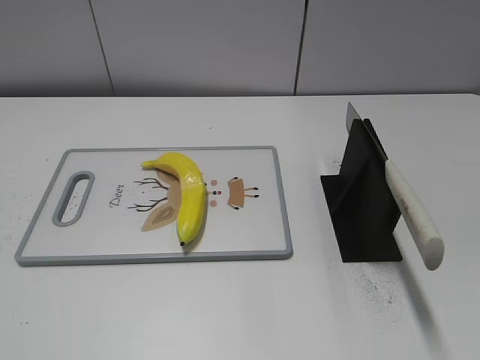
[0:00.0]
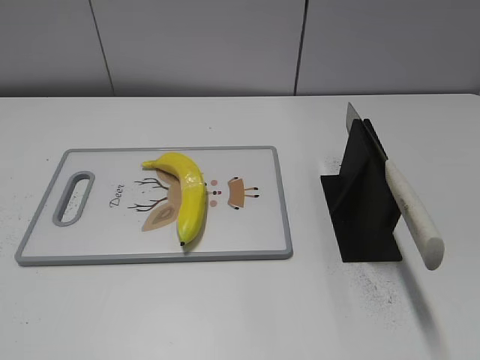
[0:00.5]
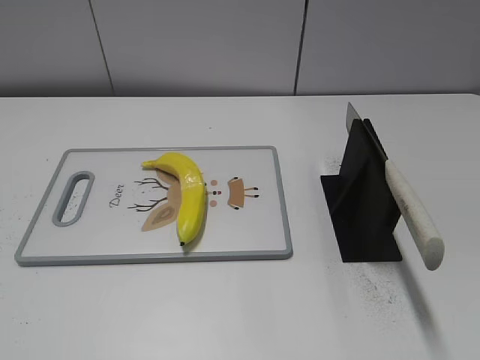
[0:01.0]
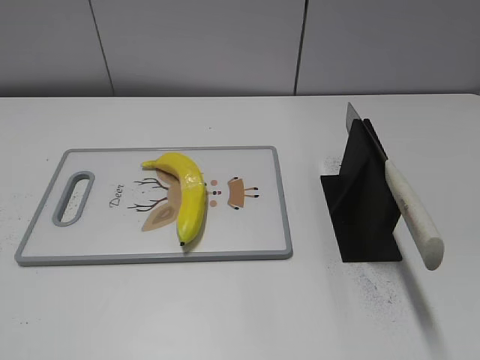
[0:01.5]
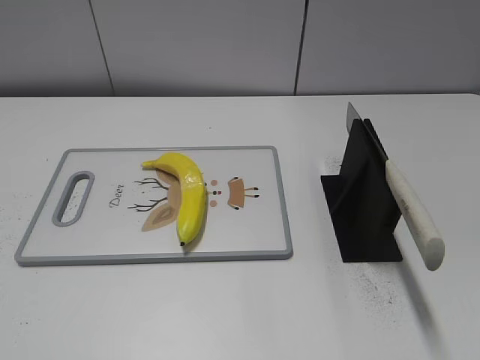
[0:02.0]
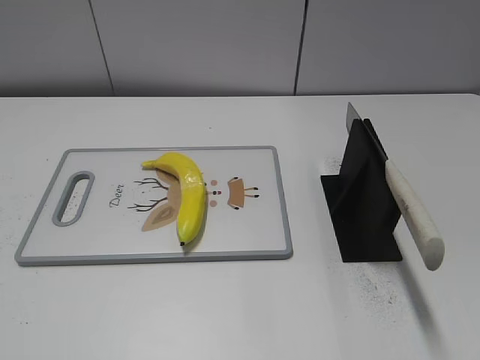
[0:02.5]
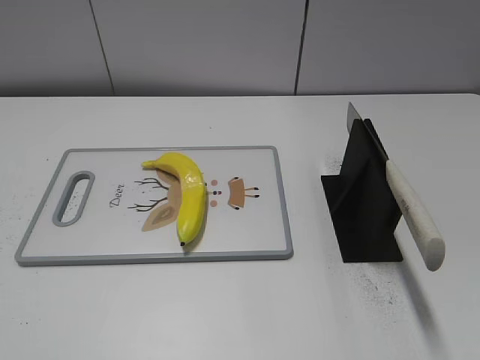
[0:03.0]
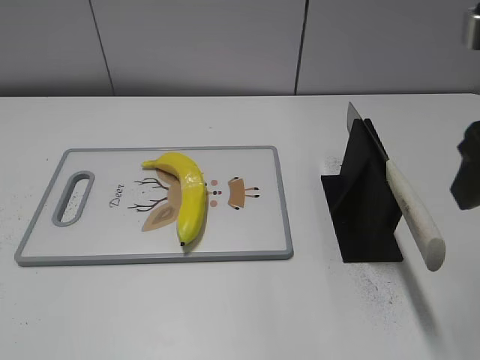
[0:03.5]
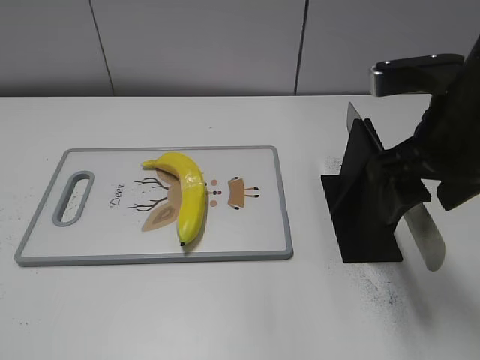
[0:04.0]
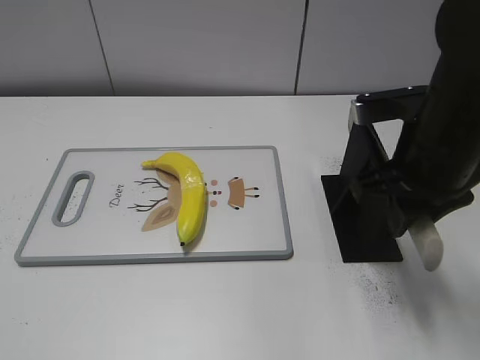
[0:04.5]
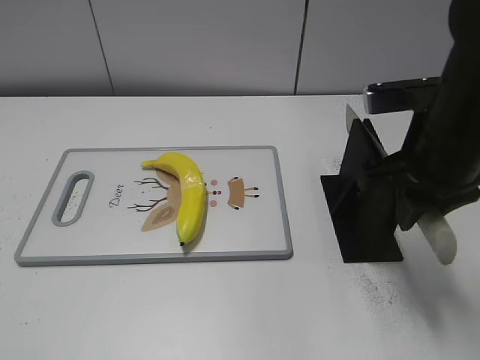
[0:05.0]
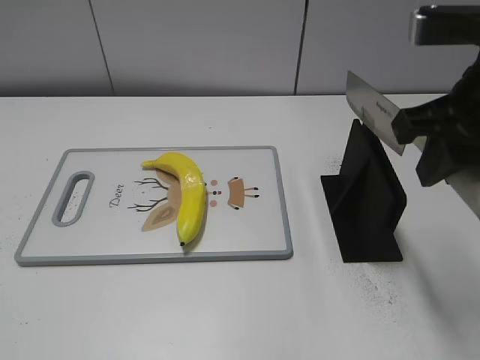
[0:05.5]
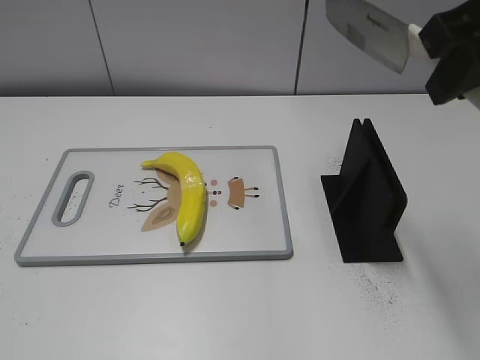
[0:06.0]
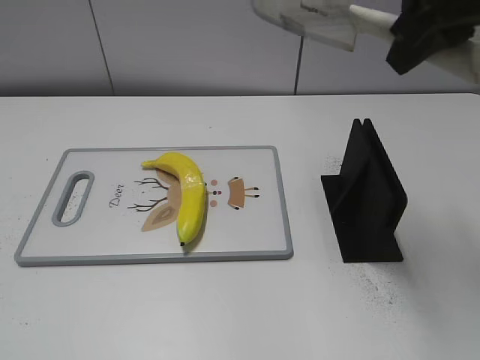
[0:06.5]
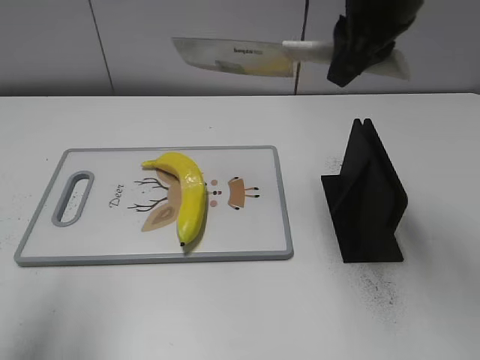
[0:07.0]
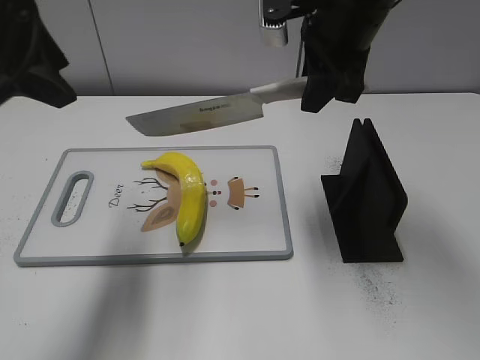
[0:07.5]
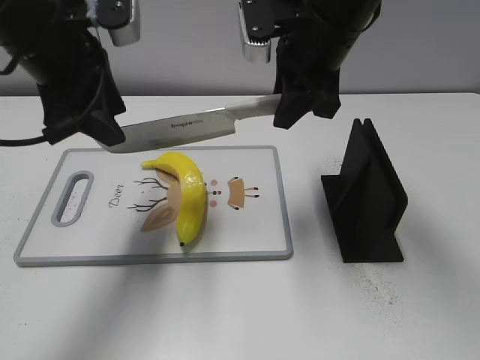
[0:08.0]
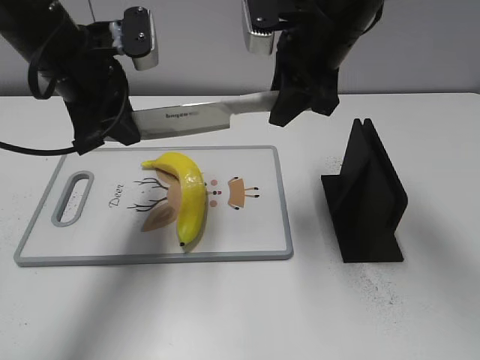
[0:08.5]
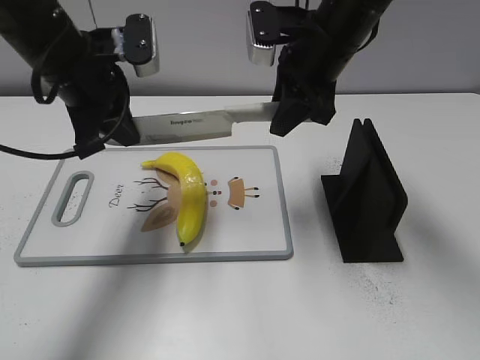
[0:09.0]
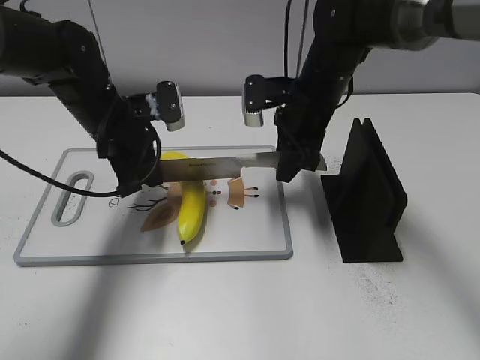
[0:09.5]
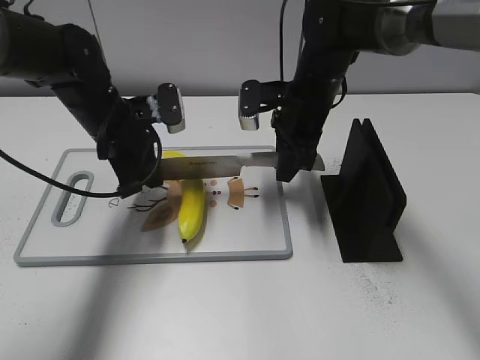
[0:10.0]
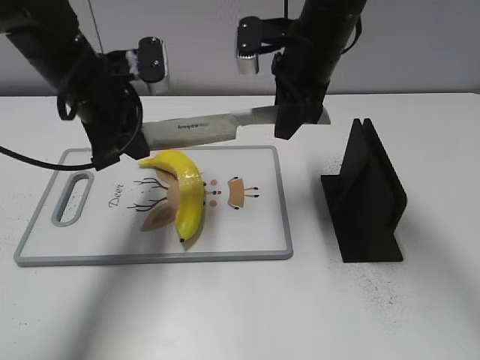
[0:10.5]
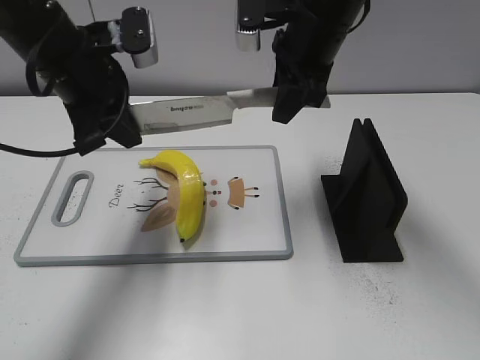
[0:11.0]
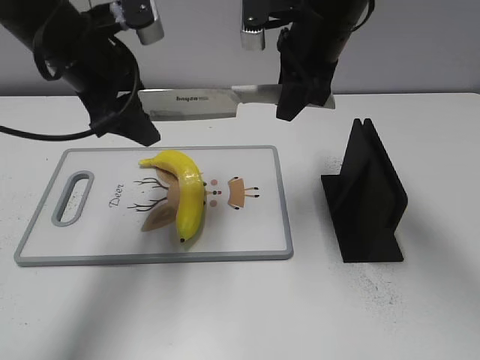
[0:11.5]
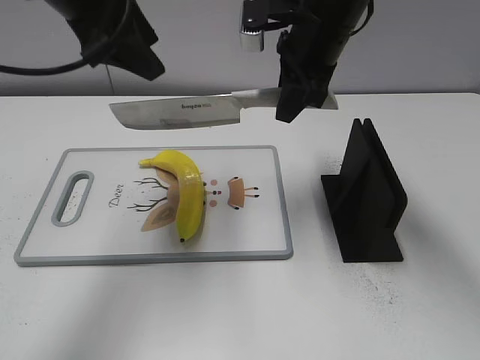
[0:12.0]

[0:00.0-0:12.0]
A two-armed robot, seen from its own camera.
Task of the whole recording: cut plastic banana.
Step, 0:00.0 to 0:05.5: Grab the knife handle with your right hand.
Step, 0:06.0 to 0:10.5: Lift the knife with your right hand.
0:02.0 to 0:04.0: The right gripper travels forward and to the left by about 30 cm.
0:04.0 to 0:06.0: The right gripper goes about 10 cm upward, and closes its fingers.
0:06.0 to 0:08.0: The right gripper travels forward, to the left and downward by approximately 20 cm; the left gripper heads forward, covering approximately 35 cm.
0:08.0 to 0:10.0: The right gripper heads downward, covering roughly 10 cm. The left gripper goes approximately 15 cm downward and forward, and closes up.
0:10.0 to 0:12.0: The right gripper travels upward by roughly 10 cm. Meanwhile the left gripper moves upward, some 20 cm, and opens.

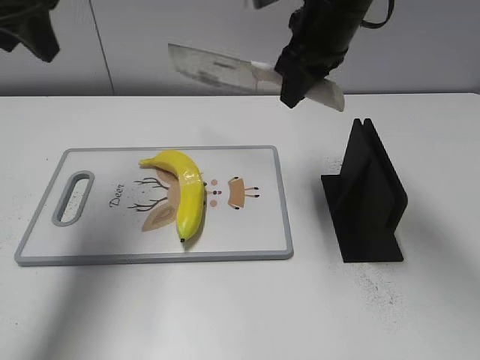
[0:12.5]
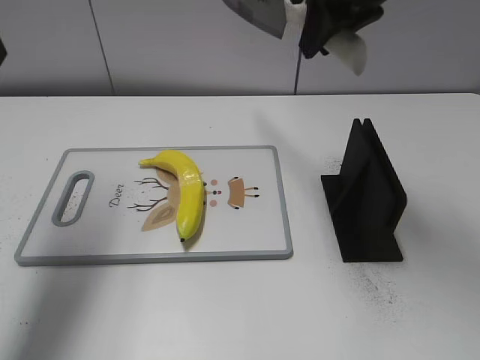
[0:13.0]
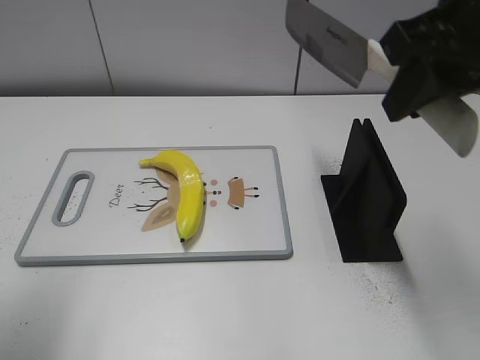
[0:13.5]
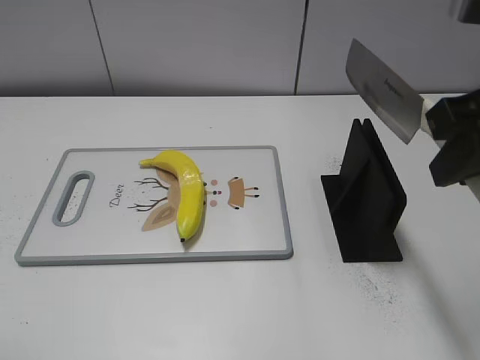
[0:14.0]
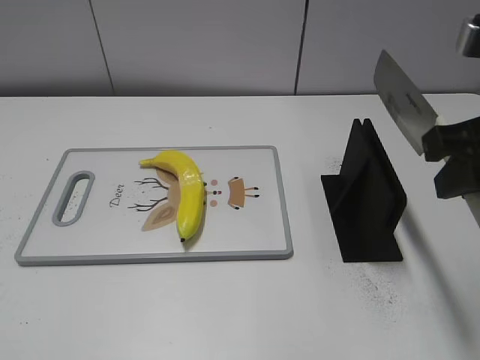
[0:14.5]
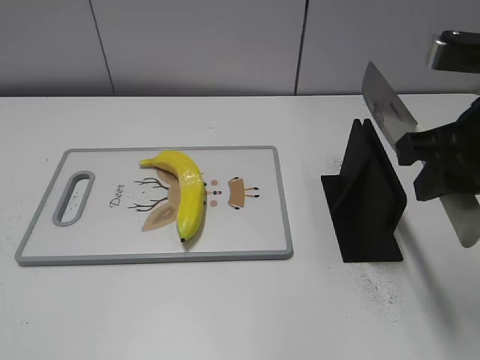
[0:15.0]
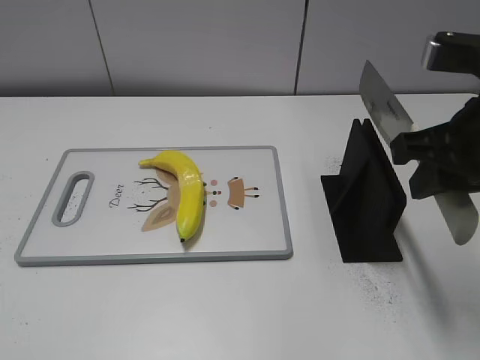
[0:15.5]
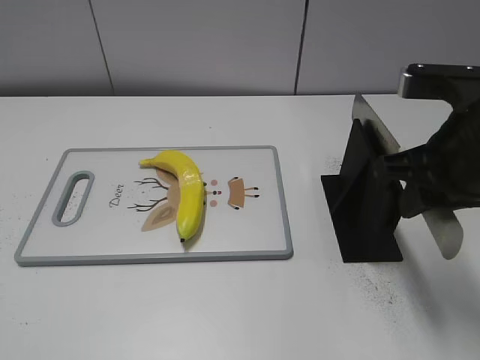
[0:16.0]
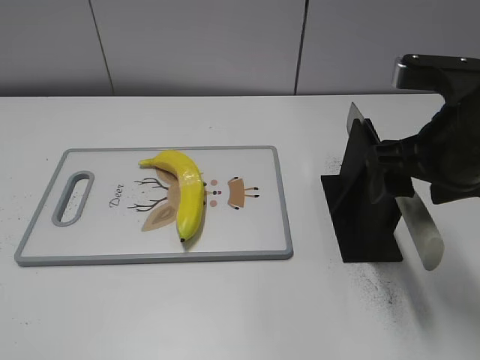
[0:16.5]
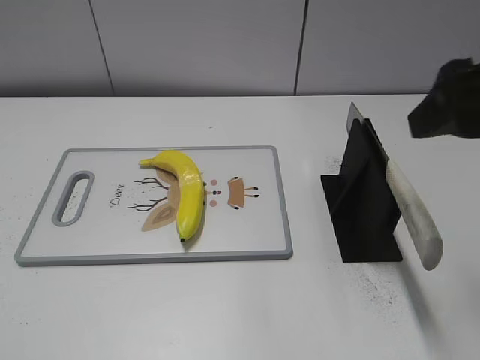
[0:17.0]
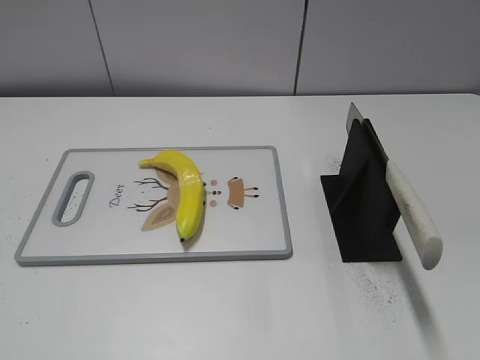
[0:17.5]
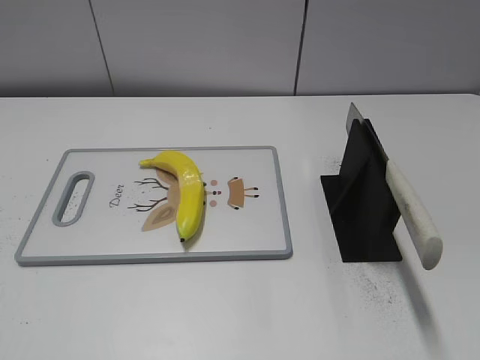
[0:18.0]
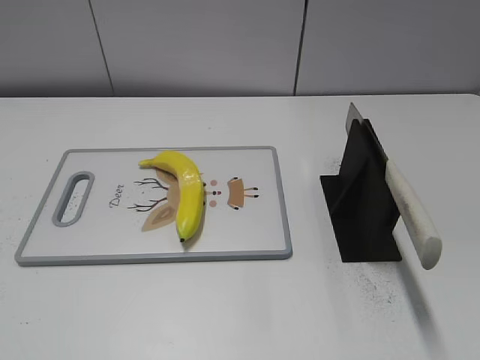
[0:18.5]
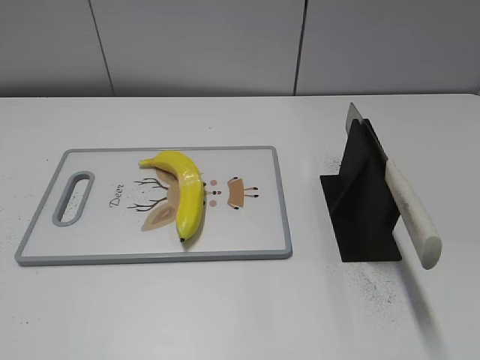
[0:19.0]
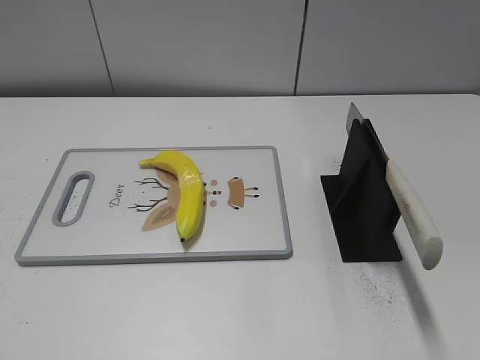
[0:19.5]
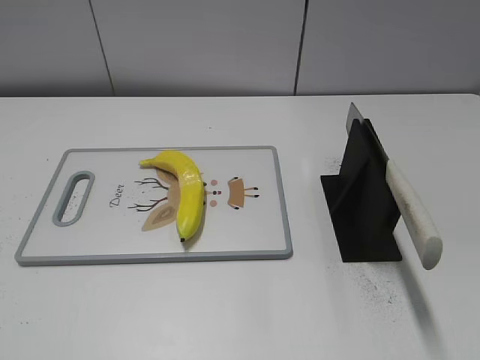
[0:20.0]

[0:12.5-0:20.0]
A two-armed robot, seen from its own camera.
Task of the whole recording: cut plastic banana.
Step, 0:14.0 to 0:20.0: Place the knife on the storage rack with your right hand.
0:12.5 to 0:14.5: The right gripper moves backward and to the right, roughly 25 cm, while the left gripper goes roughly 35 cm backward.
0:14.5 to 0:16.5: The right gripper shifts about 5 cm downward, and opens up.
0:16.5 to 0:18.0: The right gripper travels backward and to the right by roughly 25 cm.

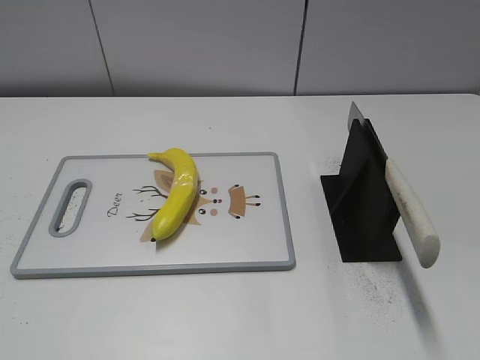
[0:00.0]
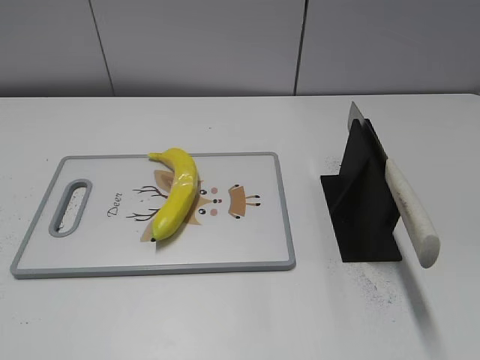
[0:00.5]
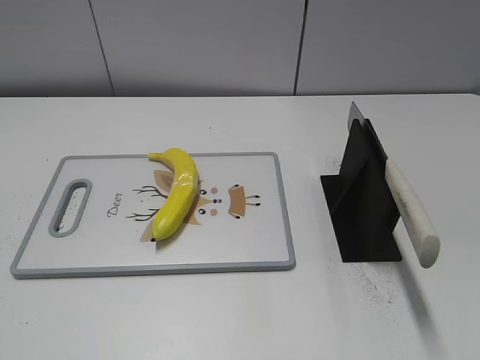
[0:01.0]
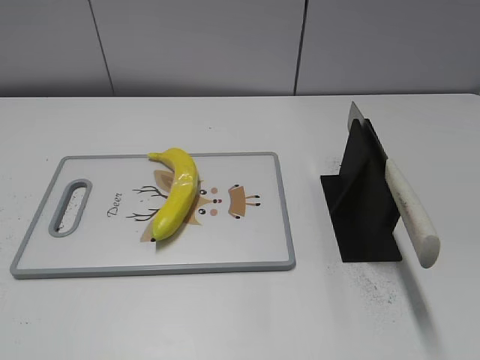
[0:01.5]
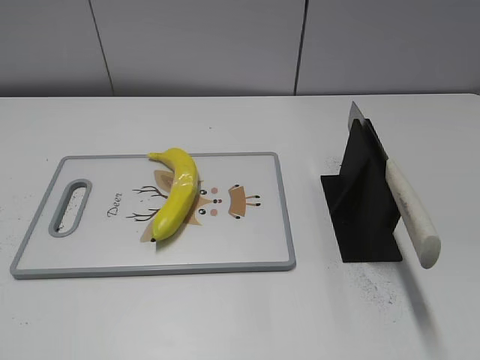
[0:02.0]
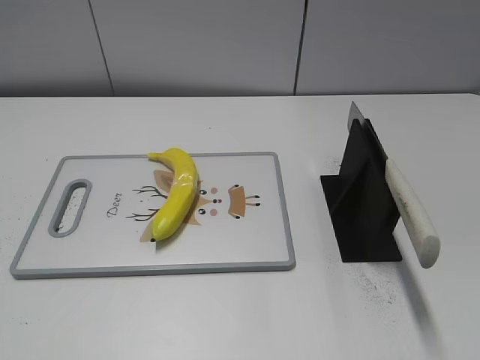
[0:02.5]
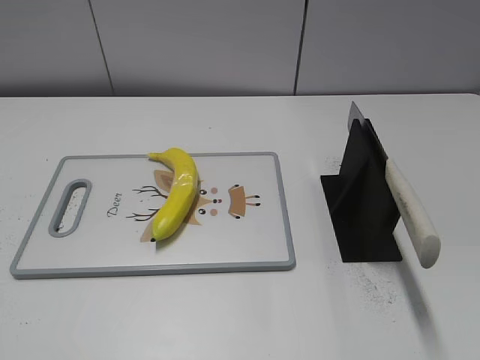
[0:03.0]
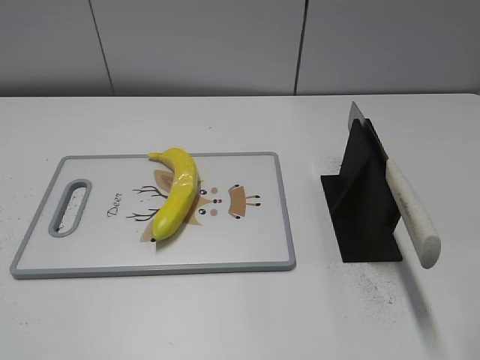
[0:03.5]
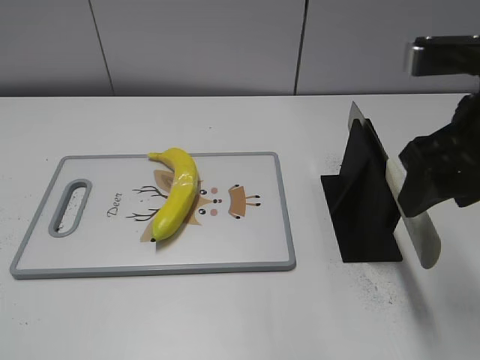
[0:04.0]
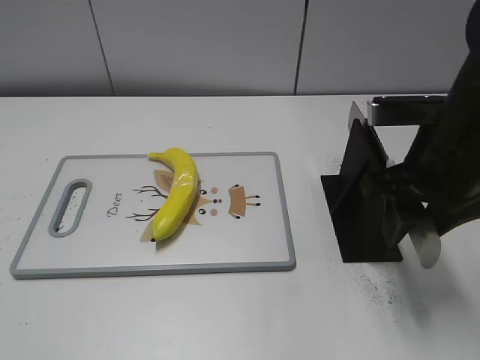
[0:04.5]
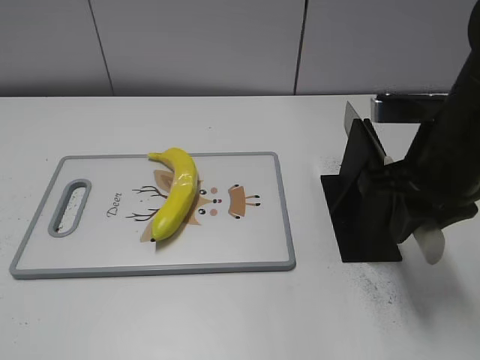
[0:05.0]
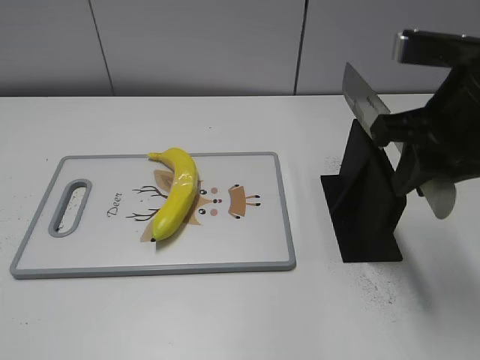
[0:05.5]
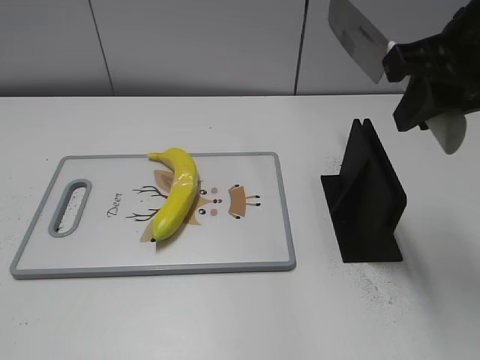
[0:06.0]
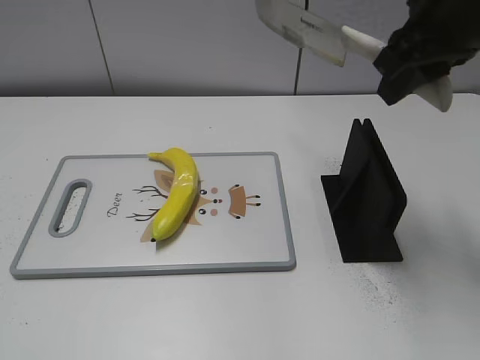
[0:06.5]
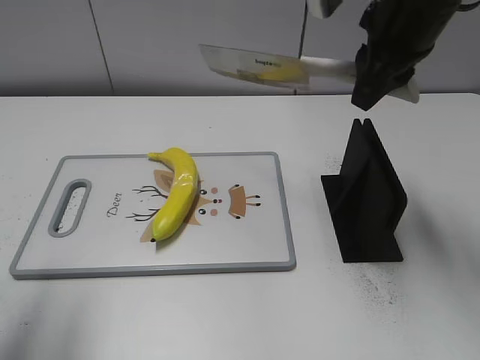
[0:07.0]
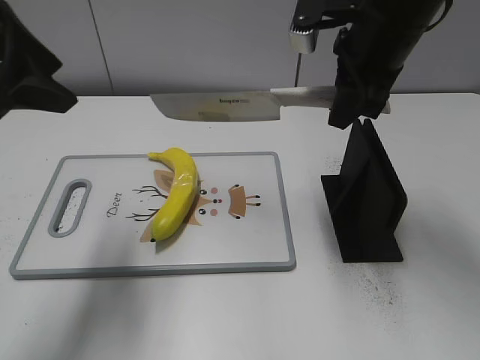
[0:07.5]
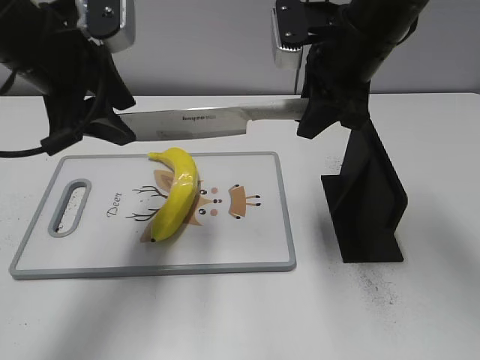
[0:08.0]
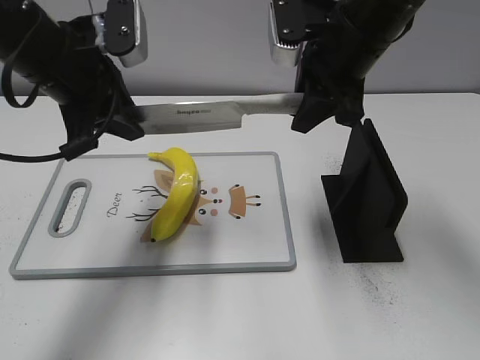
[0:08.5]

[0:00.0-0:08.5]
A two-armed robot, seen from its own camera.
Task of the whole recording: cut plastic banana.
Step, 0:00.0 to 0:05.5: Grab the knife handle with your right hand.
0:02.0 to 0:04.0: The right gripper travels forward and to the left by some 25 cm.
0:04.0 to 0:06.5: The right gripper shifts some 10 cm forward and upward, and closes up.
0:06.5 to 0:08.5: The right gripper is displaced downward, forward and to the left by some 10 cm. Meanwhile the left gripper goes about 30 cm forward and to the right, and closes up.
